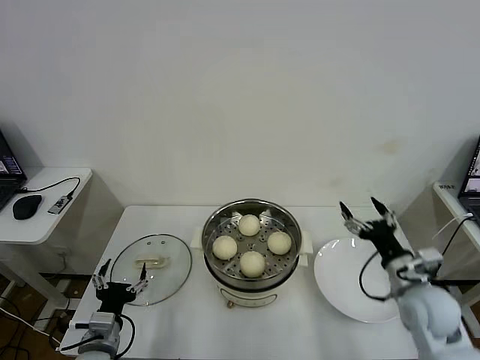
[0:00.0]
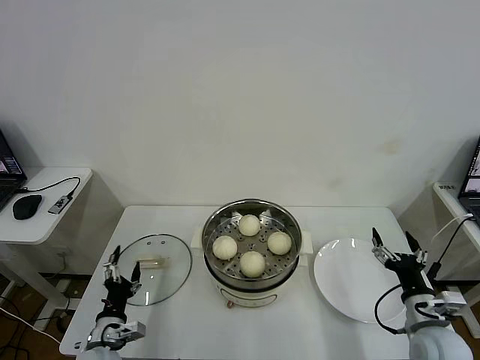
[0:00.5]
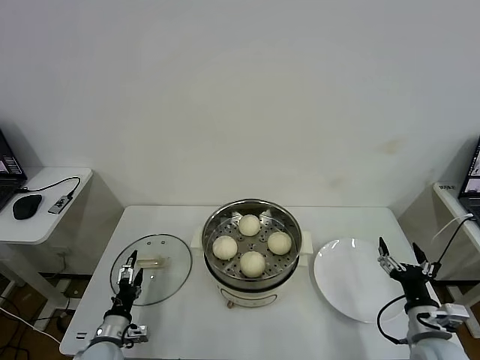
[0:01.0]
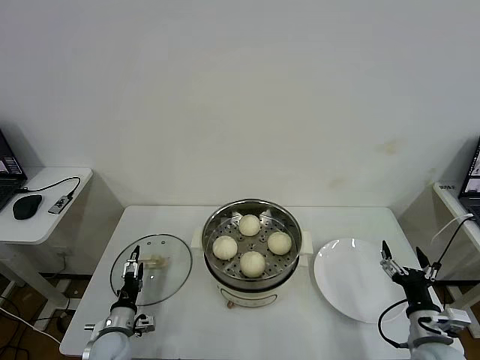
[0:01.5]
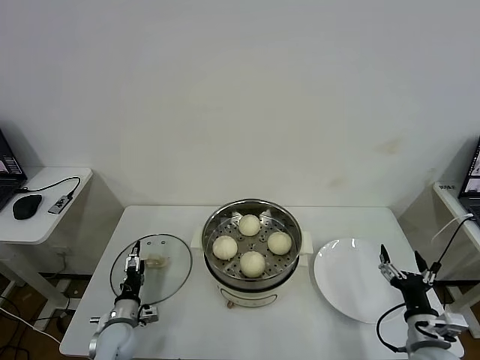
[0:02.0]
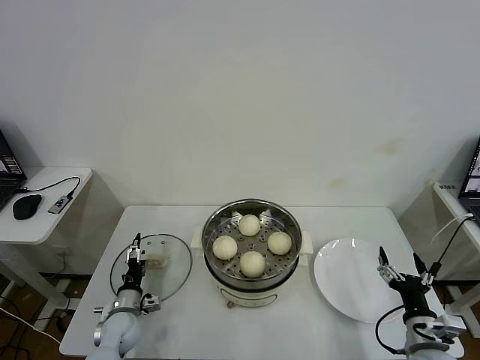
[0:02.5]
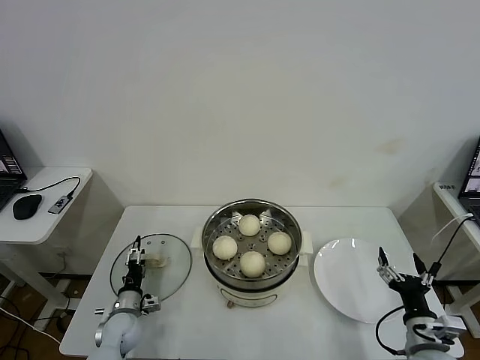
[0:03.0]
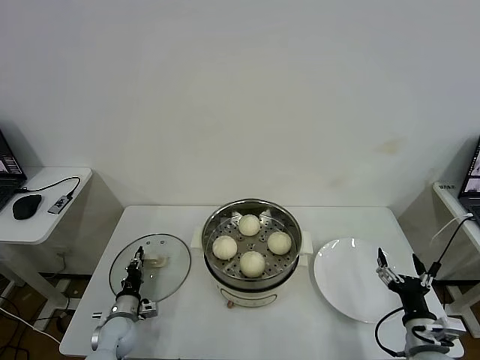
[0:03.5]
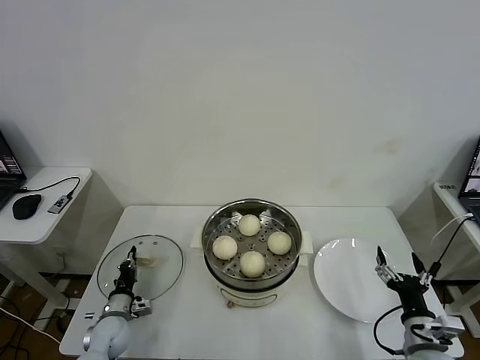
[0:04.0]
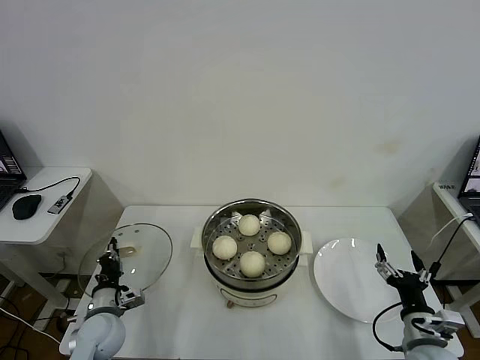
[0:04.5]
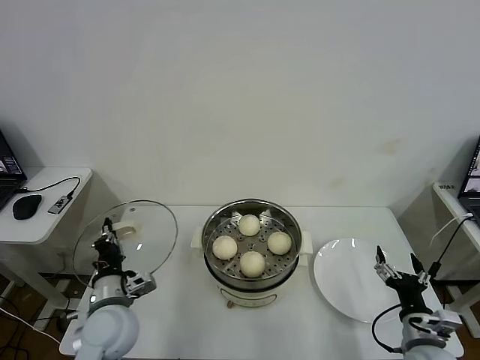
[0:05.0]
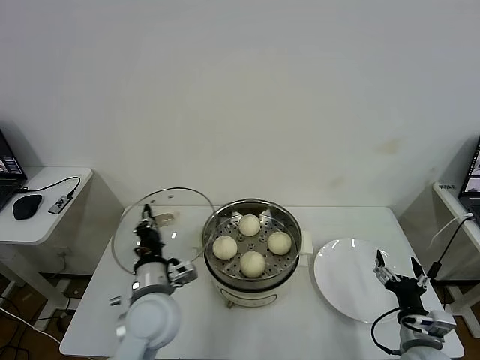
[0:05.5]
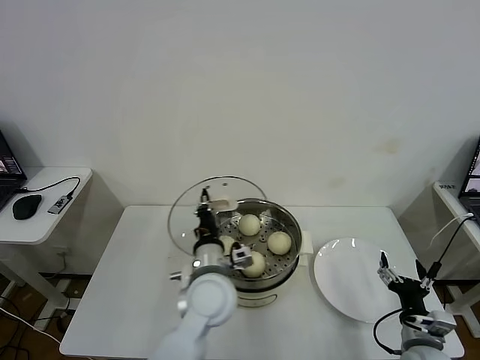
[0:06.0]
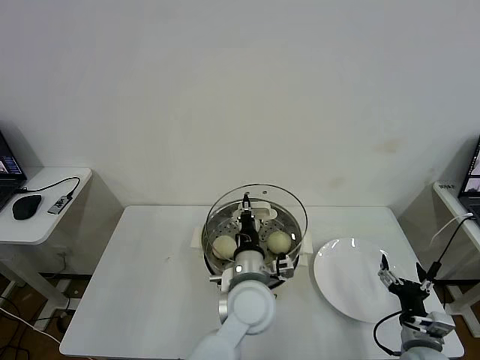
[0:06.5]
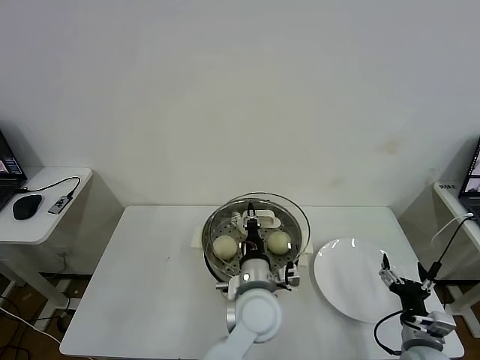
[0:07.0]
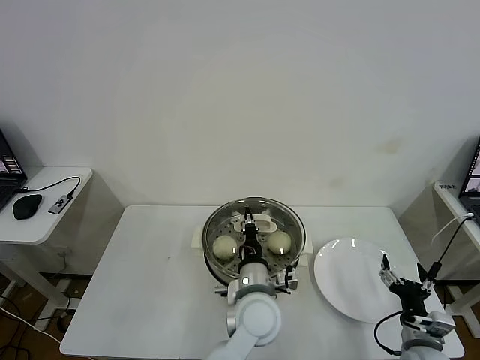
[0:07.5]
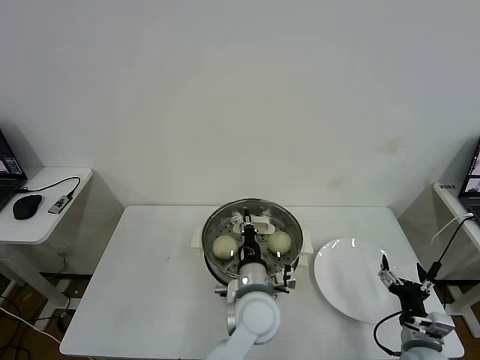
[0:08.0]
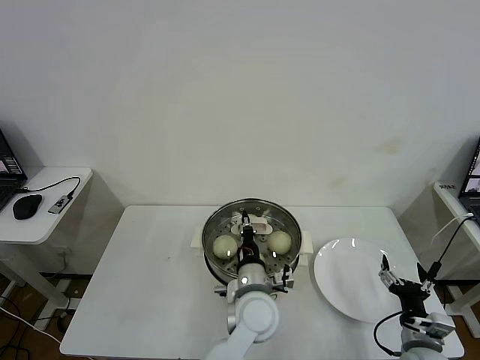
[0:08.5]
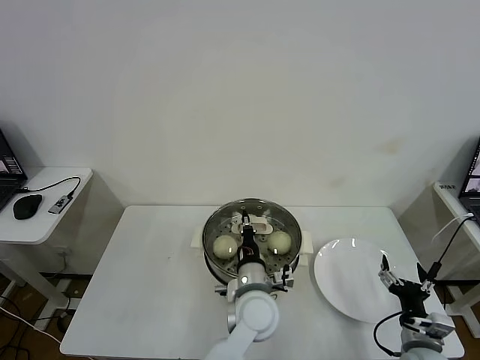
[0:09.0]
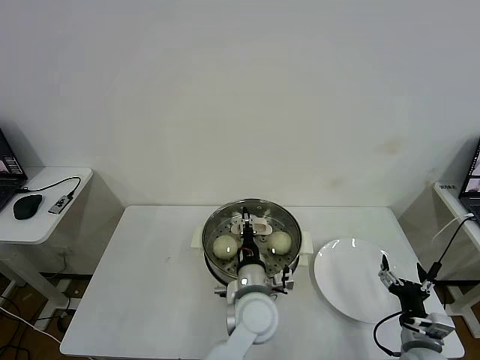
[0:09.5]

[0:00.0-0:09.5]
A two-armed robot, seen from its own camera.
Task of the whole recording: take steamed baozi put them in steamer then cover it.
Step, 0:00.0 to 0:04.0: Grasp the pot lid with left gripper.
0:00.0 to 0:02.0: The right gripper shifts approximately 10 cm backward and downward; the left gripper travels downward and forward by about 15 cm.
0:02.0 to 0:04.0: The left gripper closes.
0:04.0 to 0:05.5: The left gripper is displaced upward and to the right by some 30 cm.
0:05.5 to 0:07.5: The left gripper travels to the right by some 20 cm.
0:07.5 to 0:09.5: The grippers make only small movements.

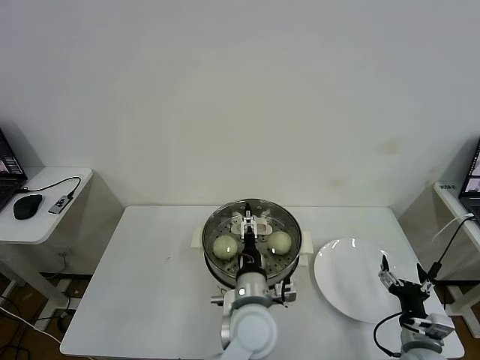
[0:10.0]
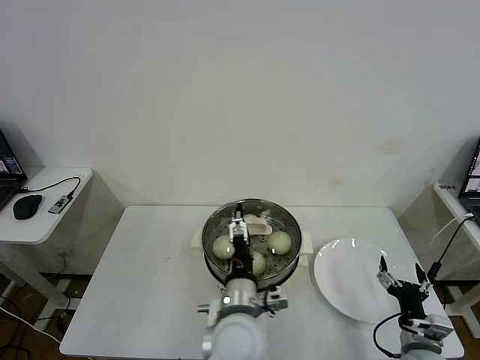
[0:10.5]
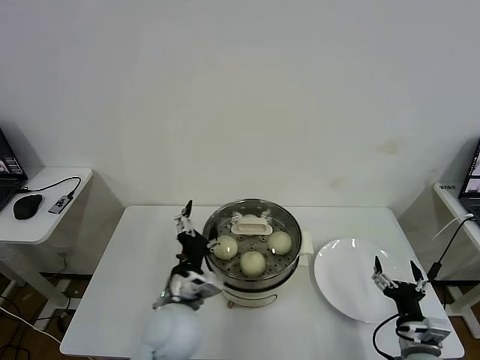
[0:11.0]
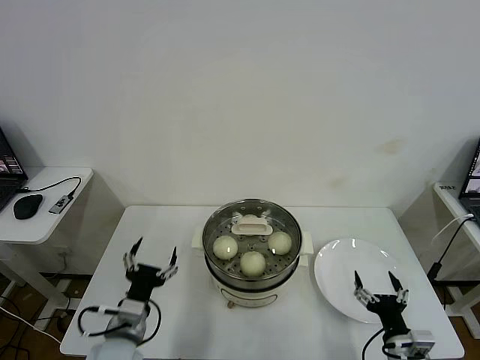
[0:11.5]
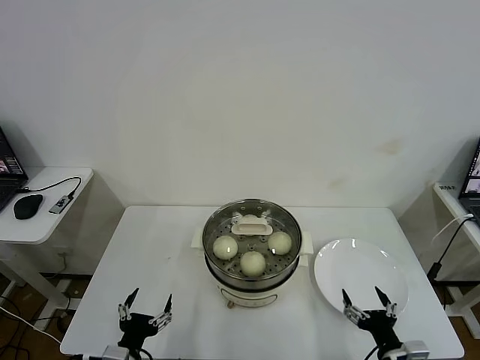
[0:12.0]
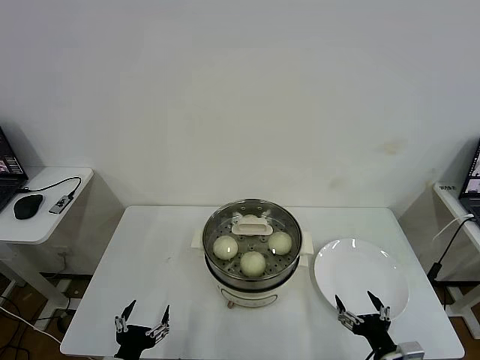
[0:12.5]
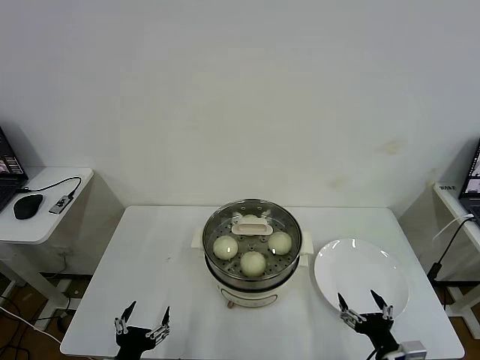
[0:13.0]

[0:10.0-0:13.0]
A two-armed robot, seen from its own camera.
Task of the whole recording: take steamed baozi put them in steamer then cover it.
0:10.0 to 0:11.5: The left gripper heads to the left, covering approximately 25 cm.
0:11.5 to 0:13.0: The left gripper heads backward, covering about 10 cm.

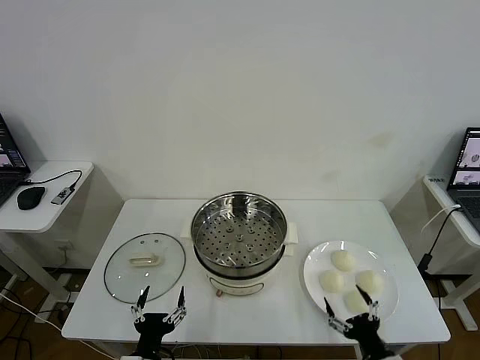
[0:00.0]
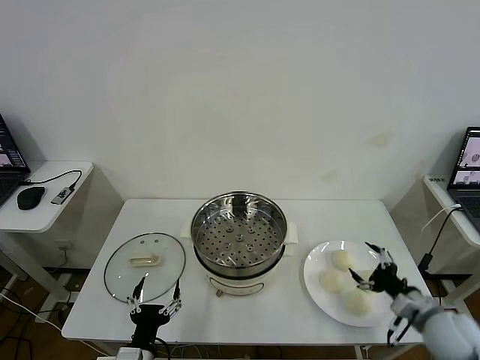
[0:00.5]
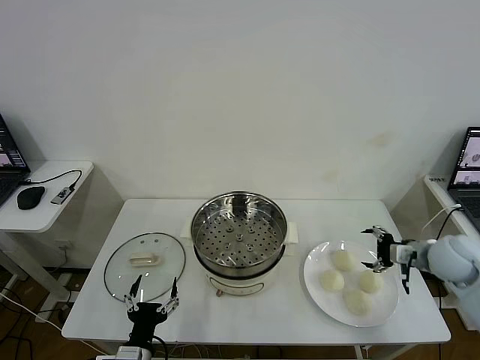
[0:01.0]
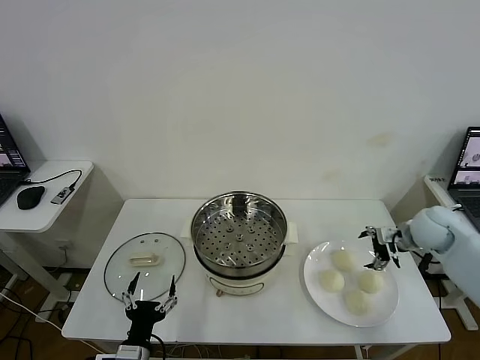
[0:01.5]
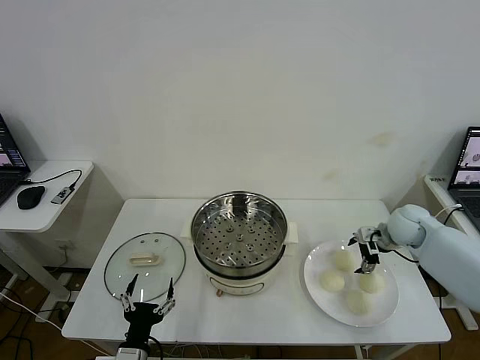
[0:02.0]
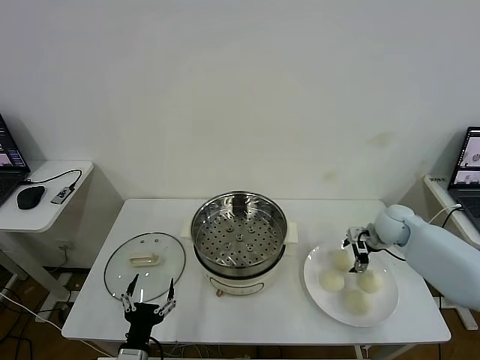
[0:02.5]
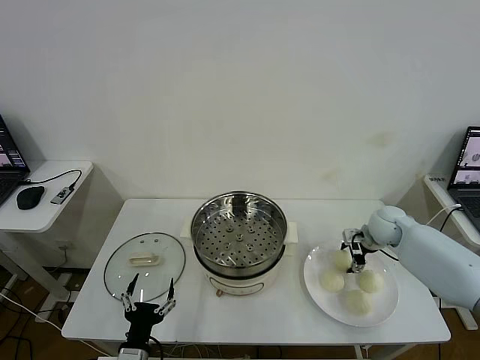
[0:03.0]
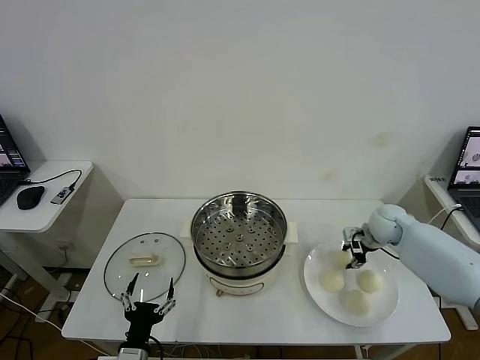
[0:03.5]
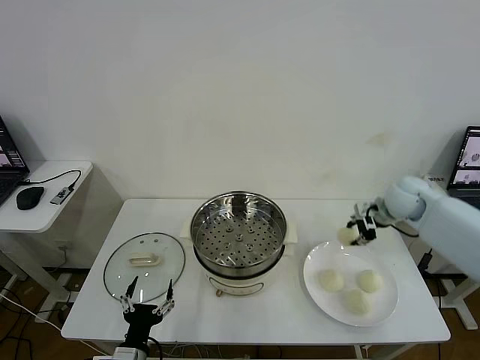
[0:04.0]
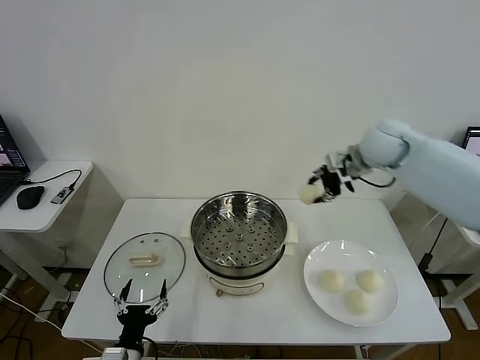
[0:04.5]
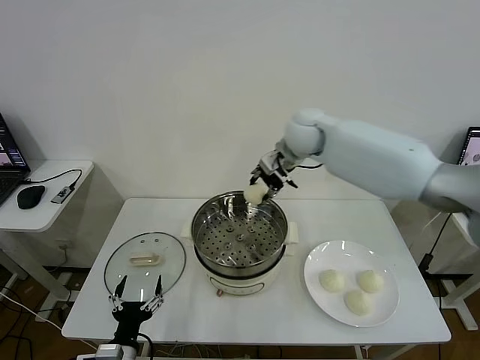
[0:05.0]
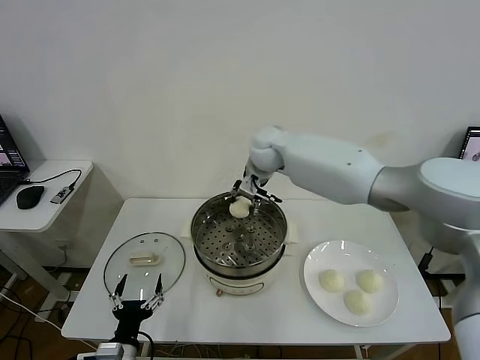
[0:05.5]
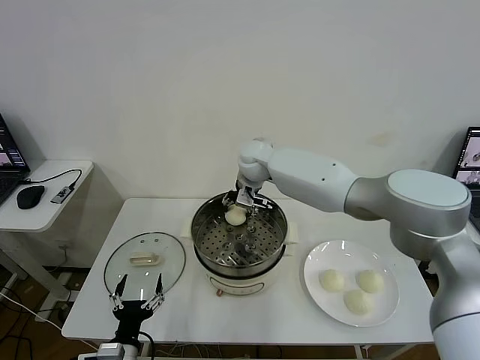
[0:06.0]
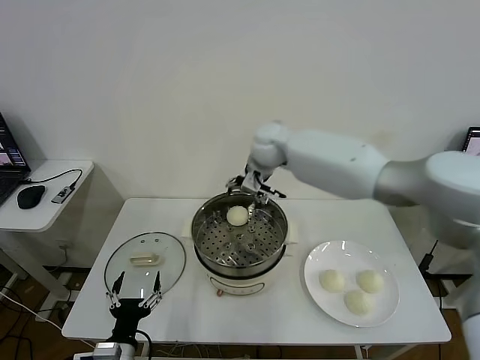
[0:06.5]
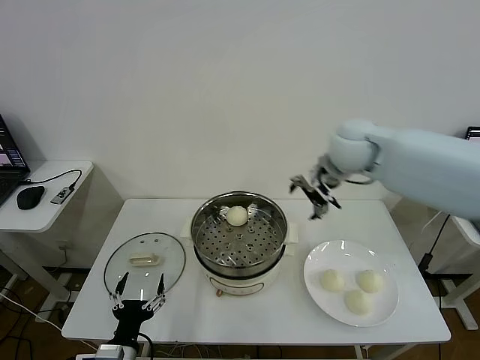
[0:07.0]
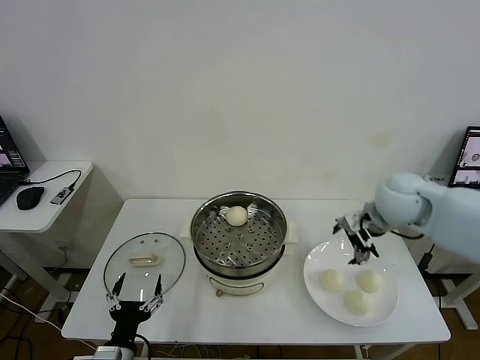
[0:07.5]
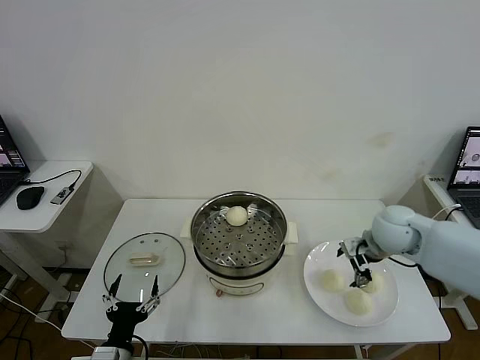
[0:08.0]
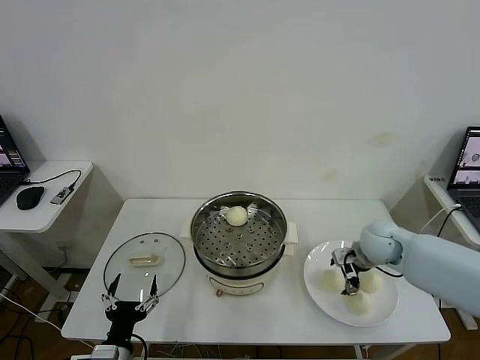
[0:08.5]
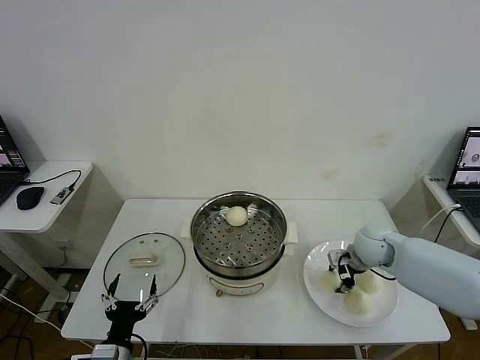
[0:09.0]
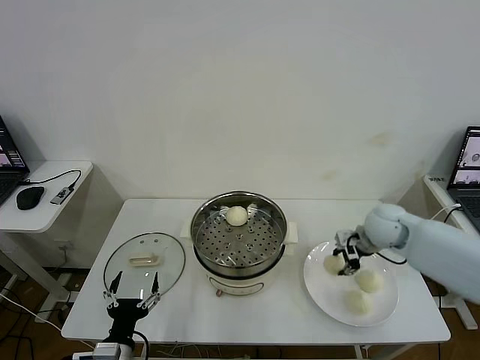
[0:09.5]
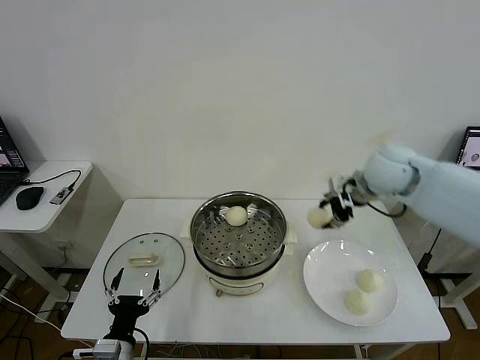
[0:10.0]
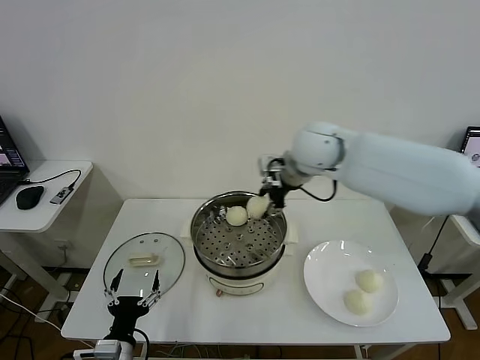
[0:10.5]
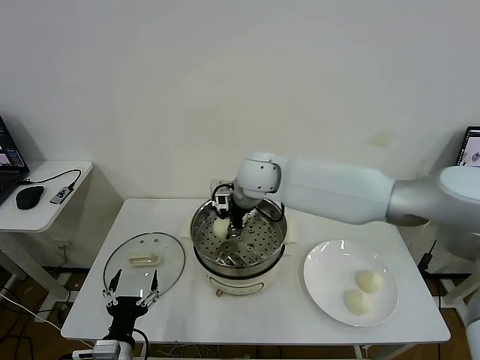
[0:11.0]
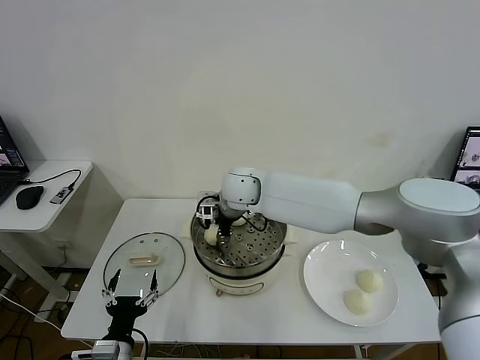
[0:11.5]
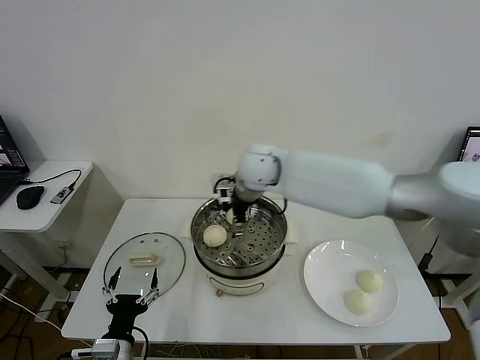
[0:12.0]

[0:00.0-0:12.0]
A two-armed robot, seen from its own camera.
Task of the whole recording: take steamed baozi put them in steamer then cover it.
Step, 0:00.0 to 0:03.0: Grasp the baozi in the plate with right gripper.
Step, 0:03.5 to 0:06.0: Place the baozi on the steamer with right gripper.
Step, 0:06.5 to 0:09.0: Grasp the baozi in the plate with right gripper.
Step, 0:09.5 to 0:11.5: Place the baozi on the steamer with right gripper.
0:02.0 to 0:04.0: The right gripper moves upward, some 10 cm, and closes its fingers.
0:04.0 to 0:06.0: The right gripper is displaced to the left by about 35 cm, and opens.
0:06.0 to 0:08.0: The right gripper travels to the right and backward by about 35 cm, and opens up.
0:08.0 to 0:10.0: The right gripper shifts some 15 cm upward and forward, and closes up.
0:10.0 to 0:12.0: The right gripper goes roughly 20 cm to the left, and opens its fingers.
